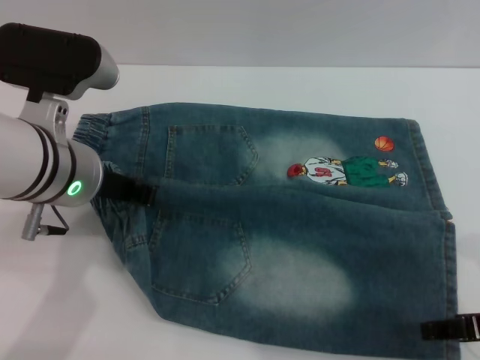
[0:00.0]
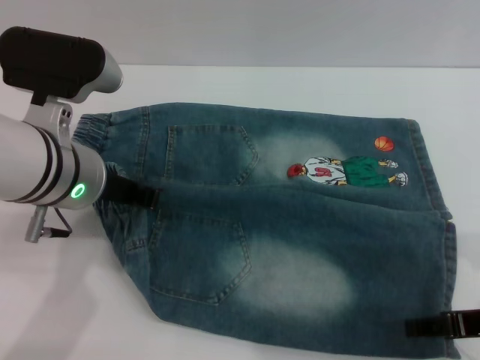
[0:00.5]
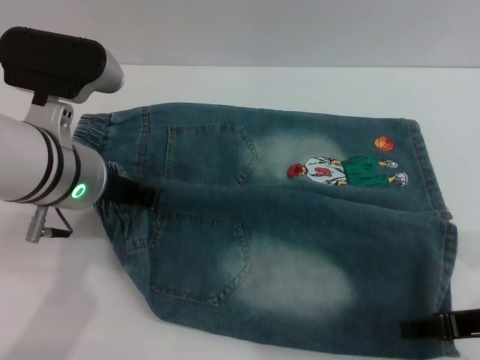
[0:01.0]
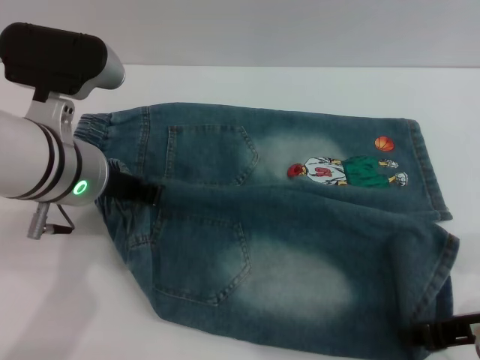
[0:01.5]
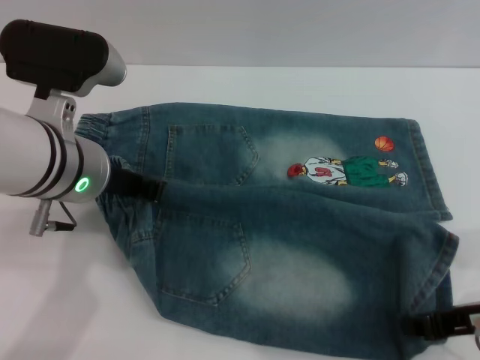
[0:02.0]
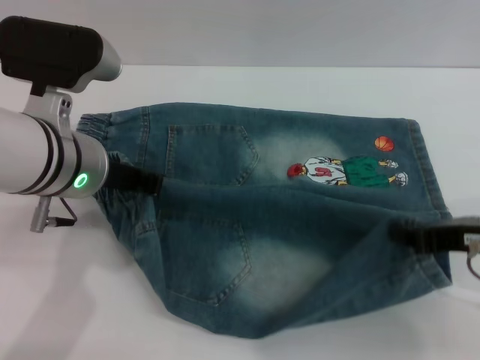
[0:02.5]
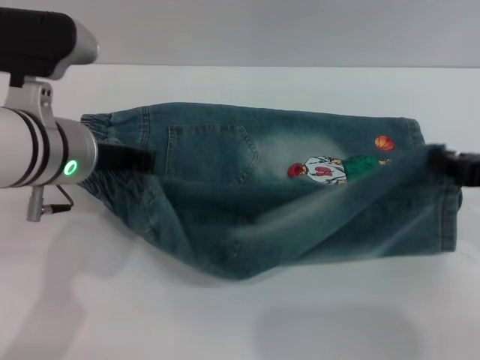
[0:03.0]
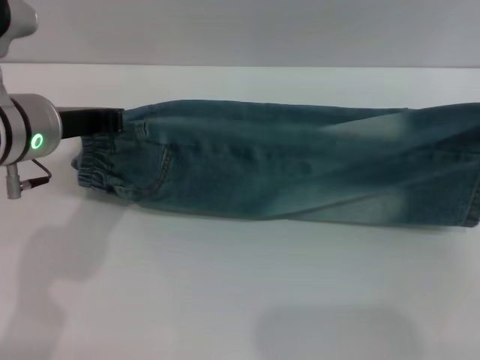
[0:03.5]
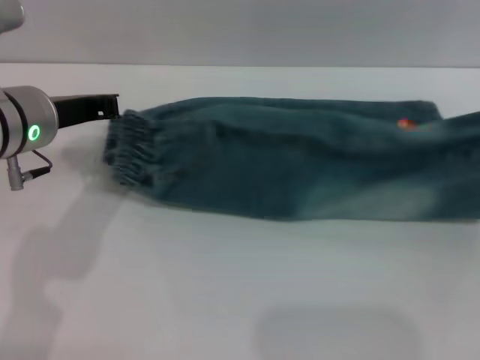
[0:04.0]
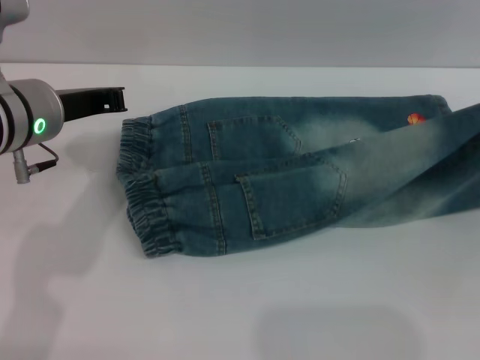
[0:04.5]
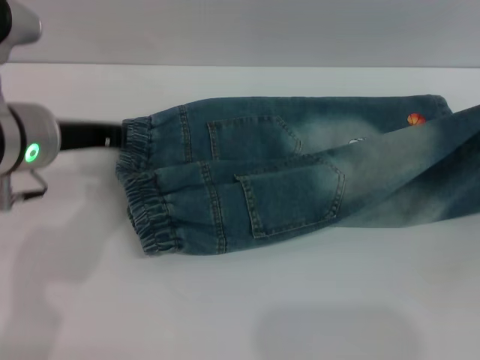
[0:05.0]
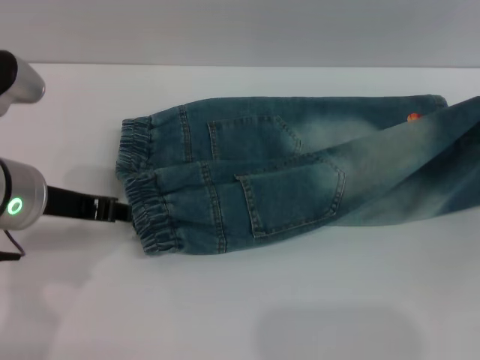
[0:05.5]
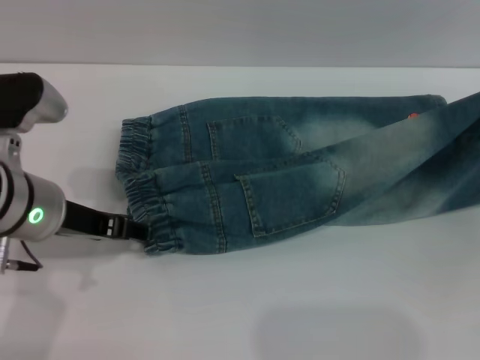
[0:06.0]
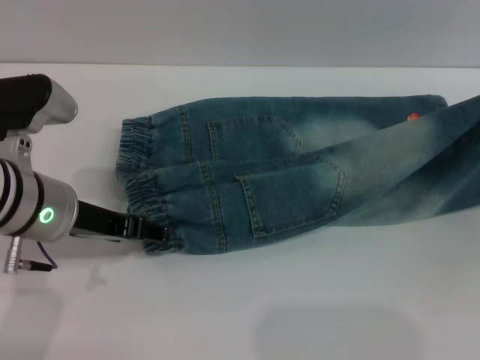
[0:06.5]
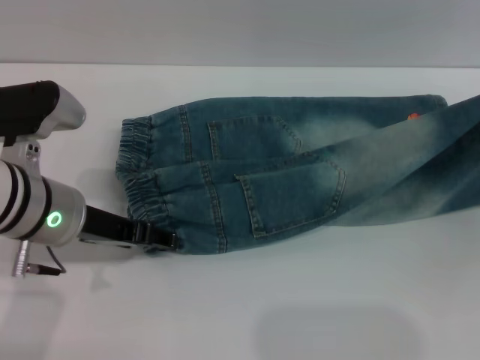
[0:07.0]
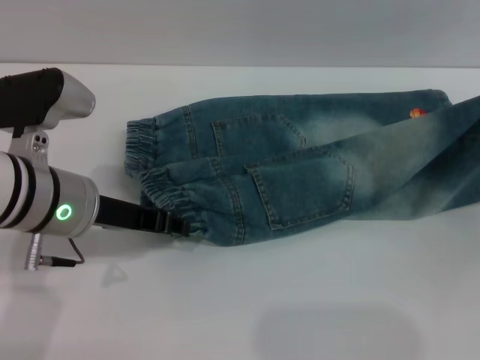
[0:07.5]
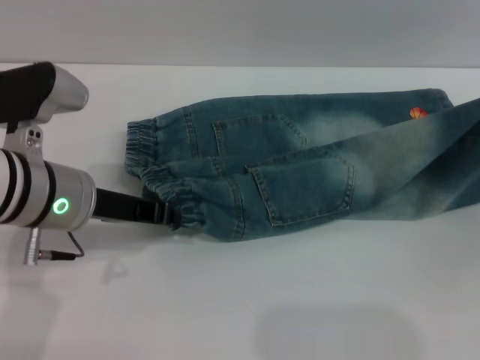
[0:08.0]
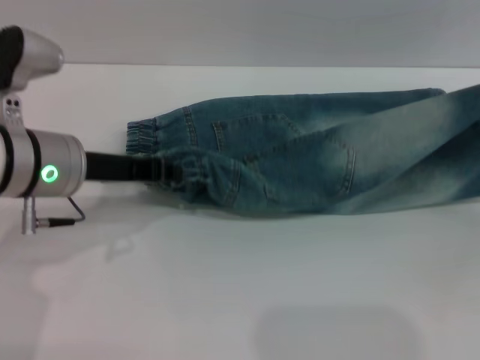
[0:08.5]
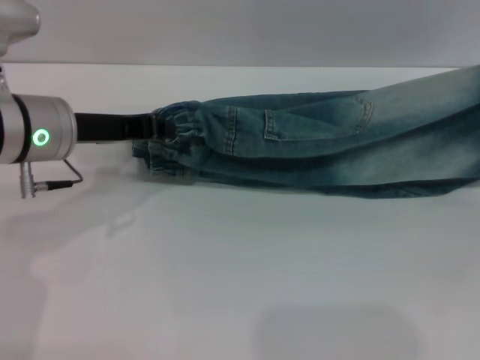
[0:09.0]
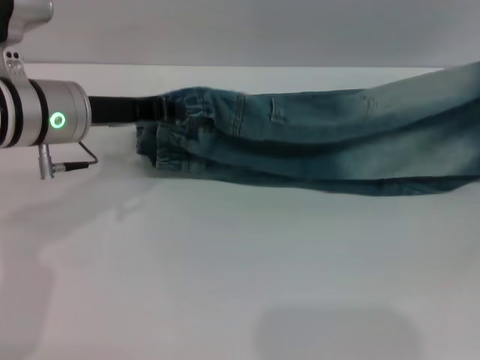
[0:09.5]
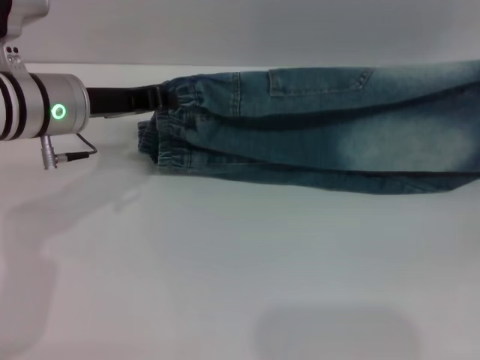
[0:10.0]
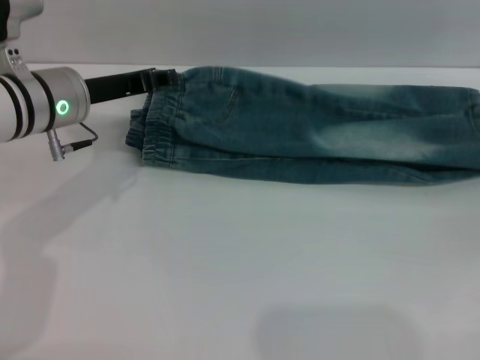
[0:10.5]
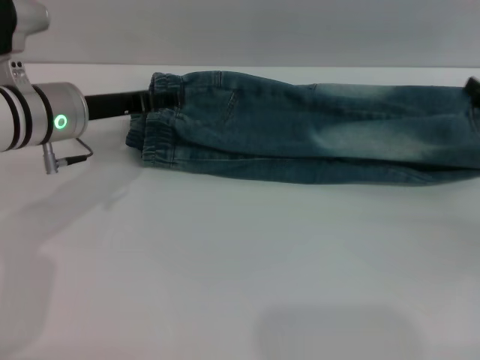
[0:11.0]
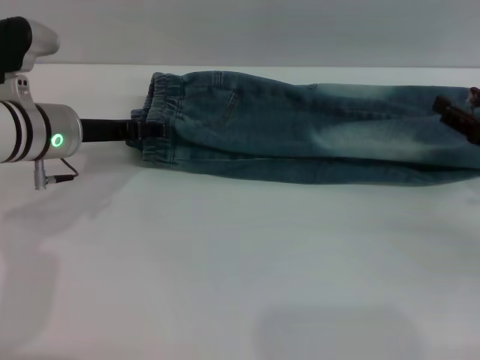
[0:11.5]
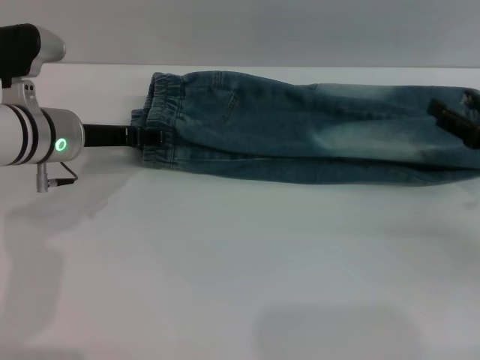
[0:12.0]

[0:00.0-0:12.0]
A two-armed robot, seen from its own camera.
Step, 0:00.0 to 0:11.5: Fold the bottom of the pants upward with both grippers.
0:00.0 to 0:02.0: The right gripper closes.
0:02.0 to 0:04.0: The right gripper goes approximately 10 cm to the right; the left gripper ends up approximately 5 cm from where it was.
0:04.0 to 0:06.0: The left gripper opens up.
0:06.0 to 0:08.0: The left gripper closes up.
0:08.0 to 0:10.0: The right gripper moves roughly 5 cm. Meanwhile the left gripper moves forward, approximately 5 cm.
0:10.0 to 0:12.0: The right gripper goes approximately 10 cm to the left and downward, and opens, while the left gripper heads downward, covering about 5 cm, and opens.

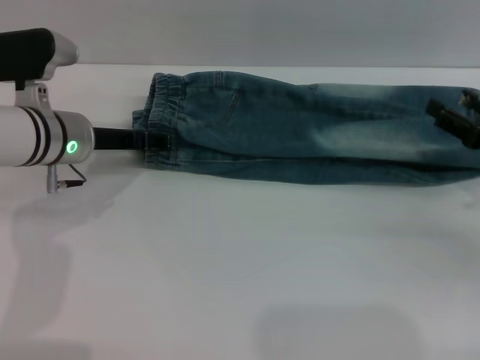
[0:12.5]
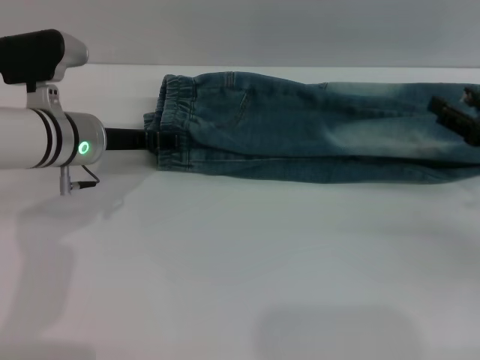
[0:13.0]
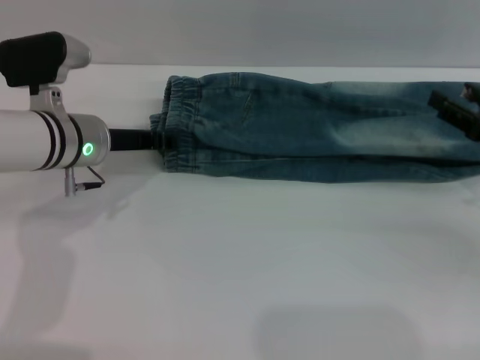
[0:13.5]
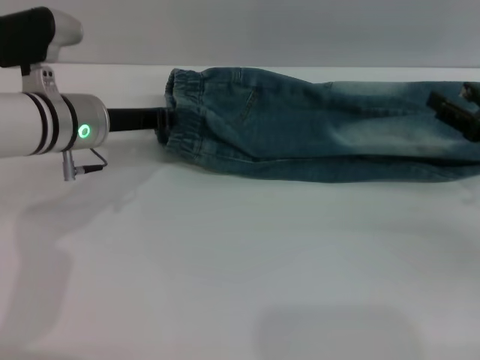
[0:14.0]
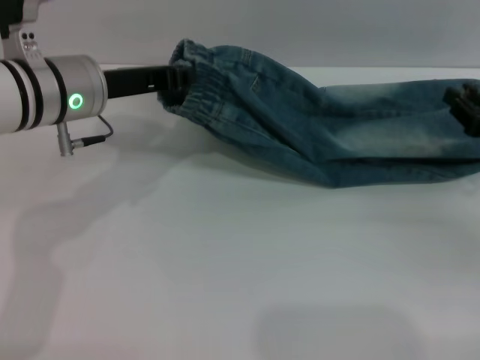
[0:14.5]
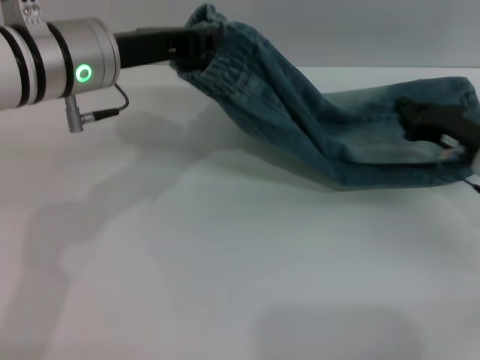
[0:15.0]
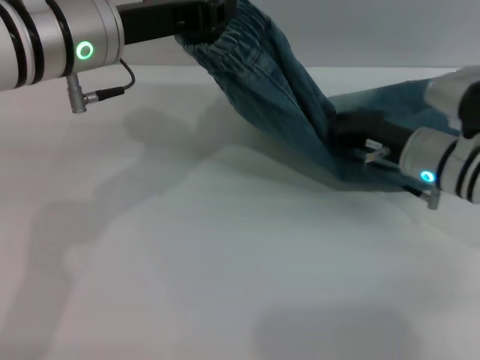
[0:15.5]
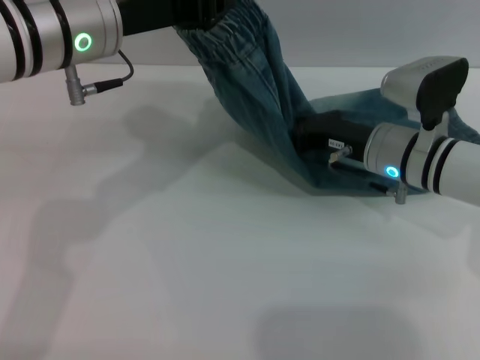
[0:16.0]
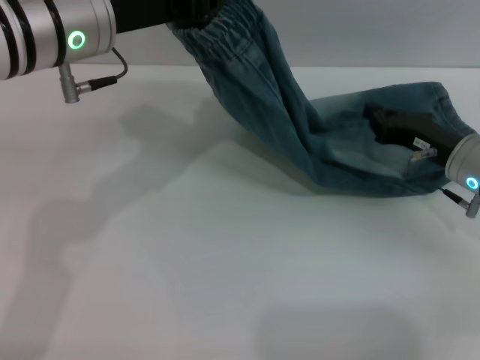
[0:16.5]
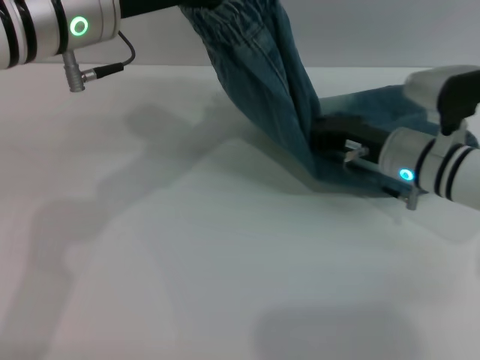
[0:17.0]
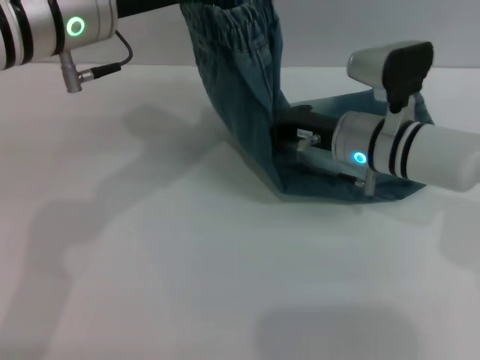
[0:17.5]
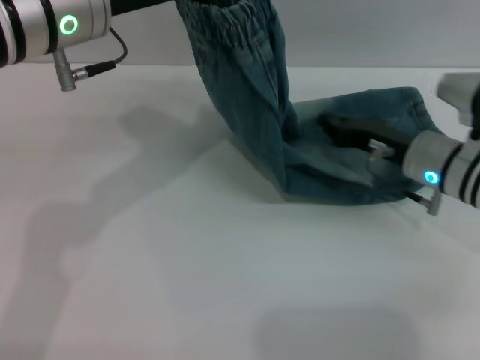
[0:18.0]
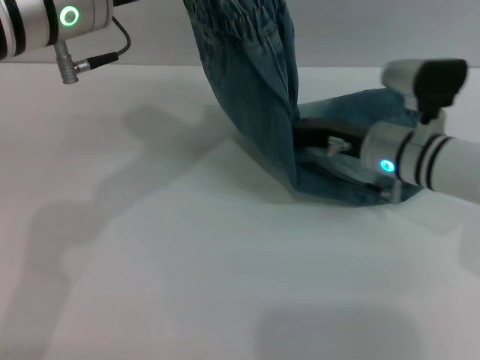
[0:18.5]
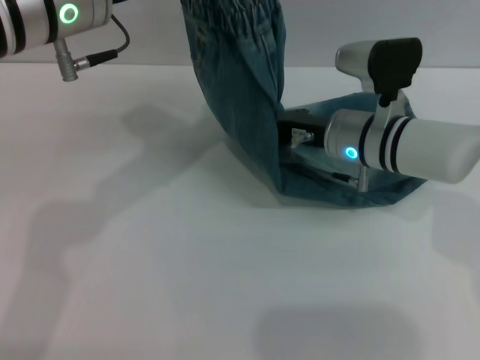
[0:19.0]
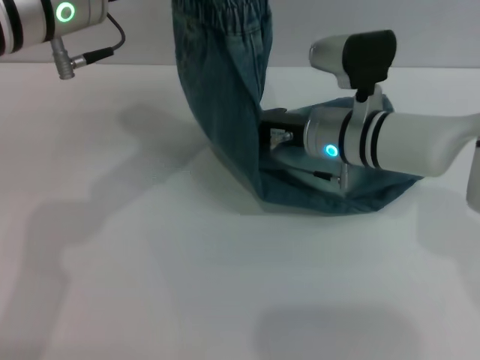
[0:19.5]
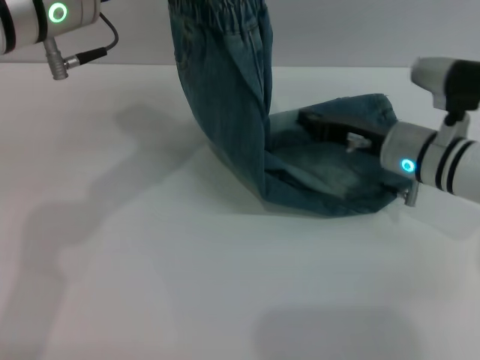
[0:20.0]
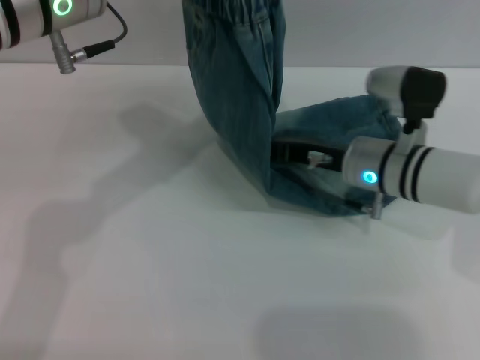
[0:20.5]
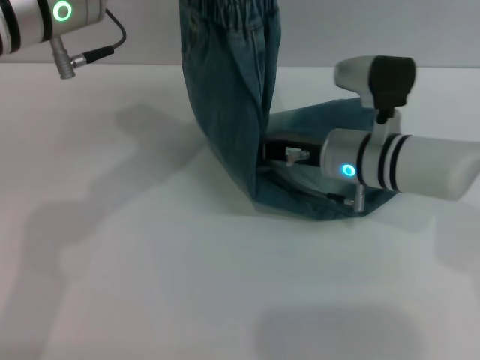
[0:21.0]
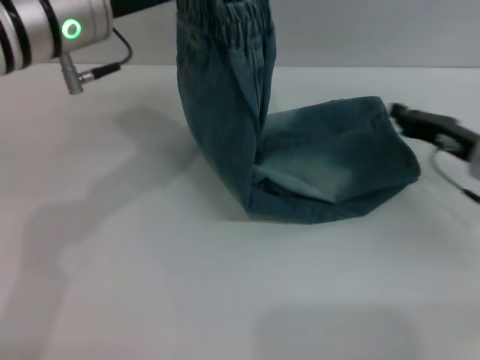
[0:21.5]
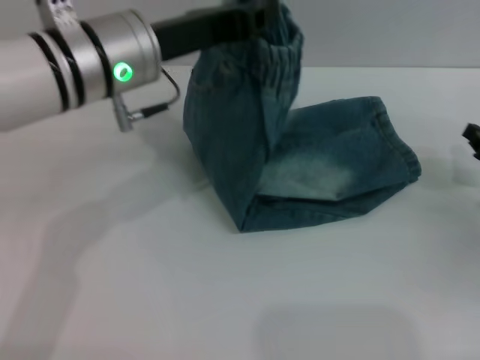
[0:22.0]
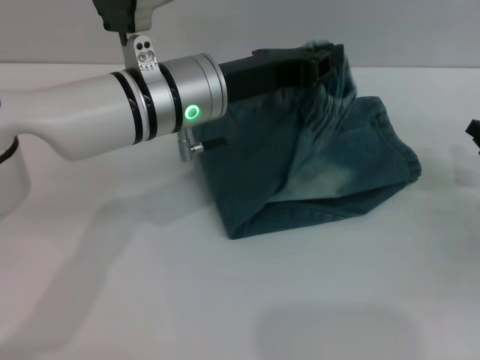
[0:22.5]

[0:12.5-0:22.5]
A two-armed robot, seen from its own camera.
0:12.5 to 0:14.5: The right gripper closes. Meanwhile the left gripper goes approximately 5 cm upward, and closes.
0:14.5 to 0:16.5: The right gripper travels to the left by approximately 10 cm, and closes, while the left gripper moves upward, about 5 cm.
0:16.5 to 0:18.5: The right gripper moves left and right over approximately 10 cm, changing direction 2 times.
0:18.5 to 0:20.5: The right gripper moves left and right over approximately 10 cm, changing direction 2 times.
0:20.5 to 0:22.5: The right gripper shifts some 20 cm to the right. Meanwhile the left gripper goes some 10 cm downward and to the right.

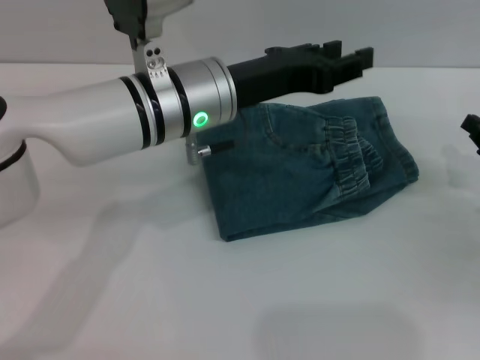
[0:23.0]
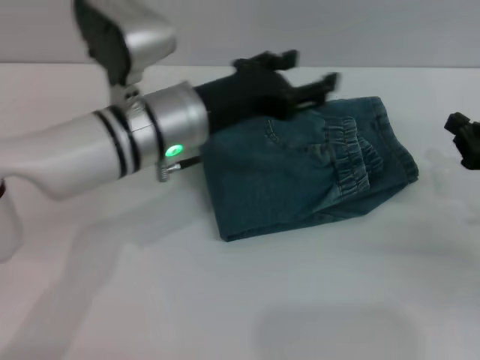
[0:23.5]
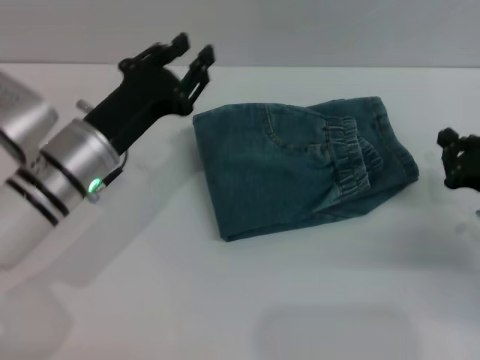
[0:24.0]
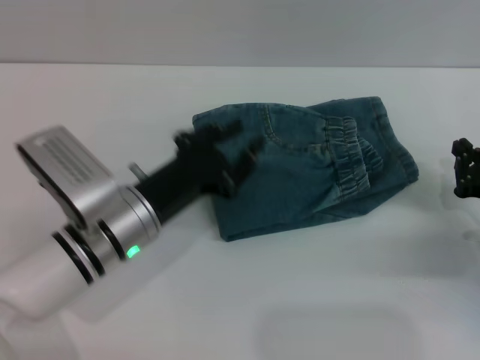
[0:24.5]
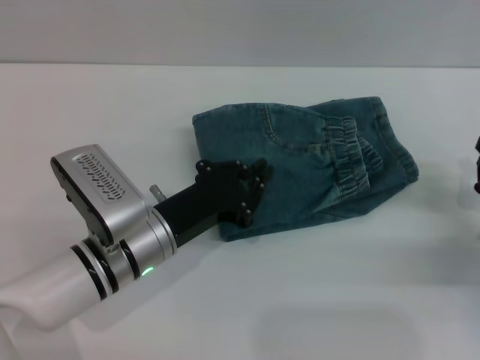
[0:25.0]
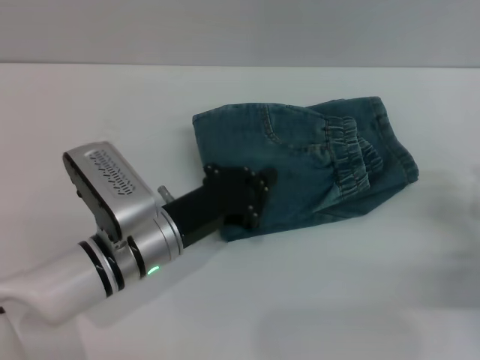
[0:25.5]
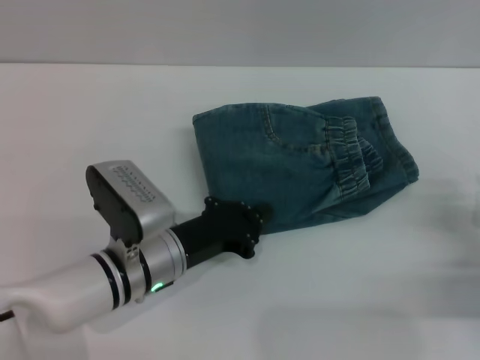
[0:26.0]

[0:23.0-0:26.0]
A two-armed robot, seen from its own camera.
0:23.0 to 0:24.5: The right gripper shifts by roughly 5 cm. Meanwhile the left gripper travels downward, to the left and backward by roughly 15 cm, and opens, then closes once more.
0:24.5 to 0:26.0: The right gripper changes place by about 5 cm. The left gripper shifts by some 5 cm, and closes up.
